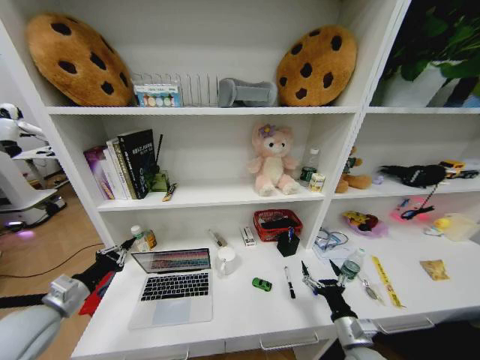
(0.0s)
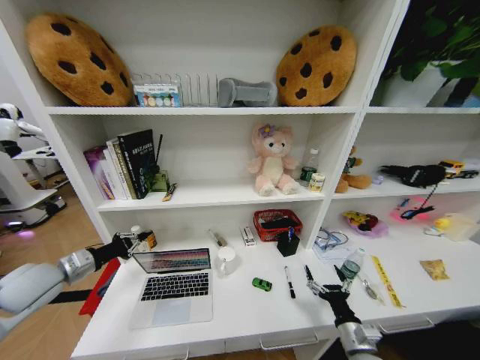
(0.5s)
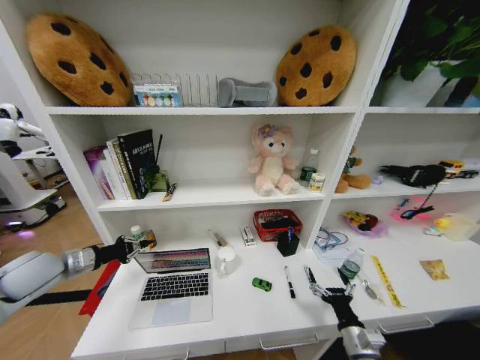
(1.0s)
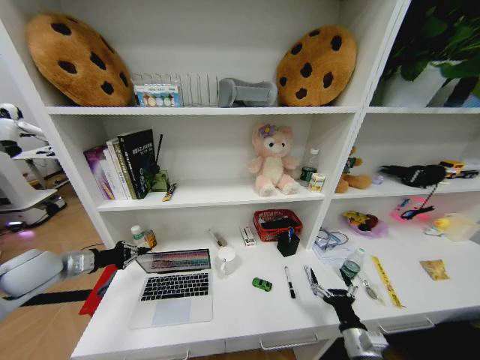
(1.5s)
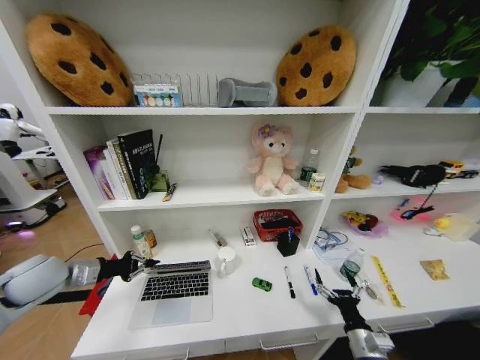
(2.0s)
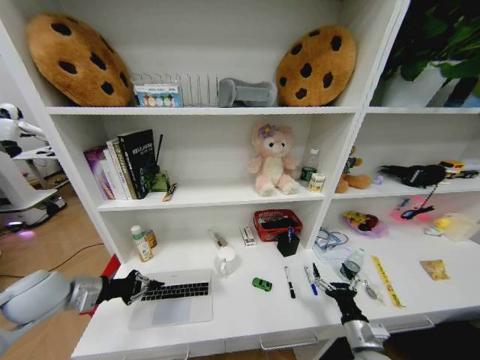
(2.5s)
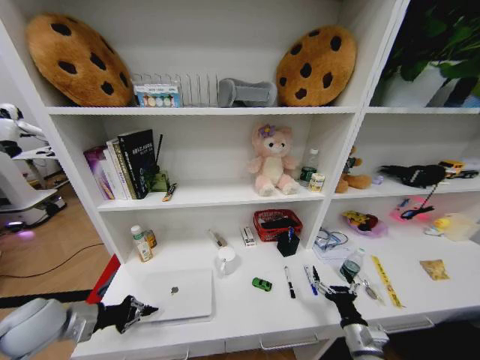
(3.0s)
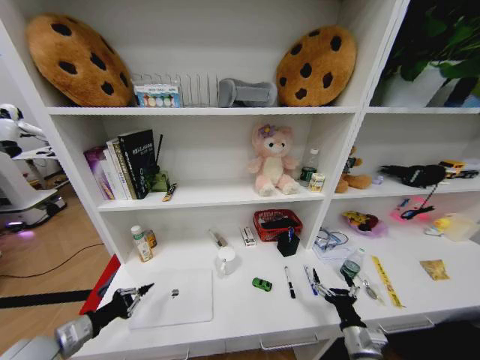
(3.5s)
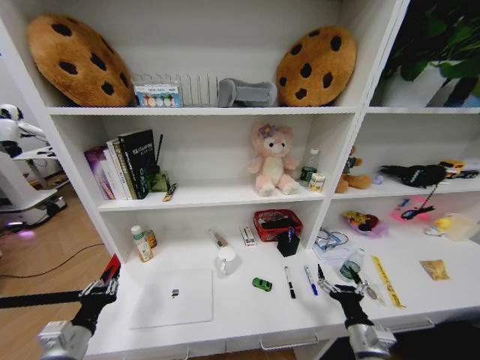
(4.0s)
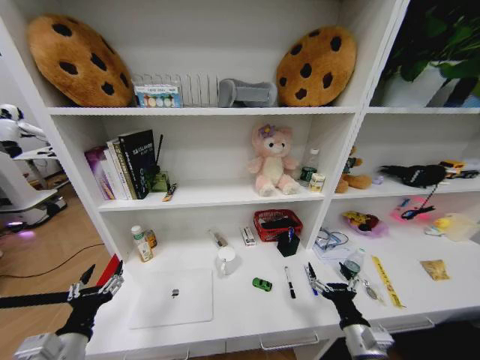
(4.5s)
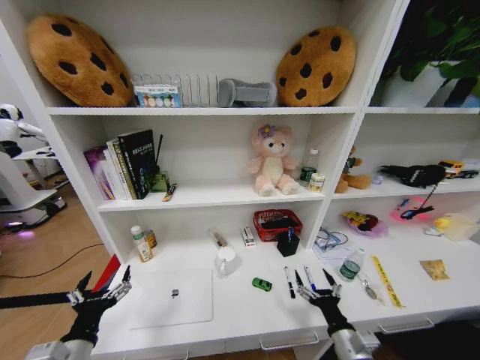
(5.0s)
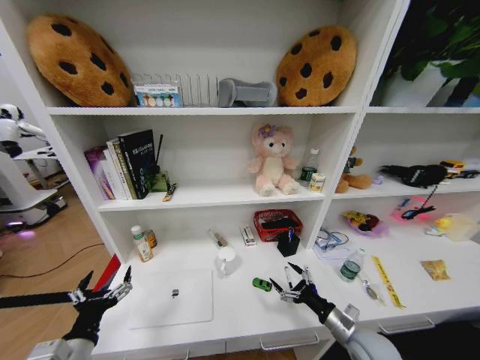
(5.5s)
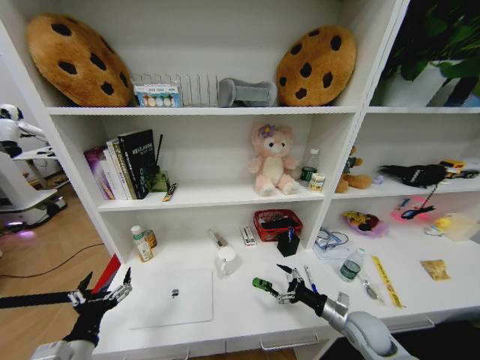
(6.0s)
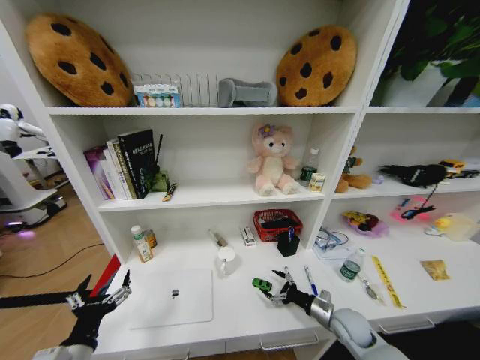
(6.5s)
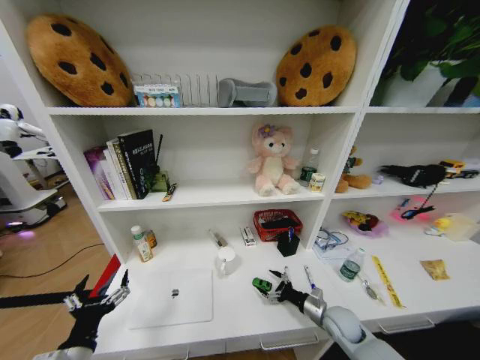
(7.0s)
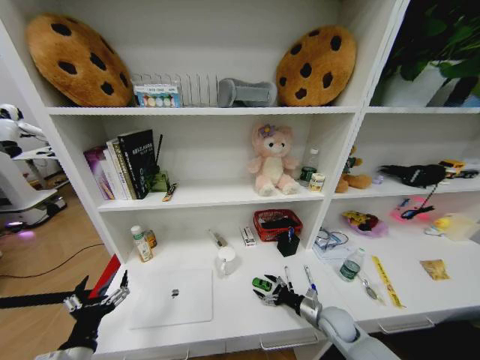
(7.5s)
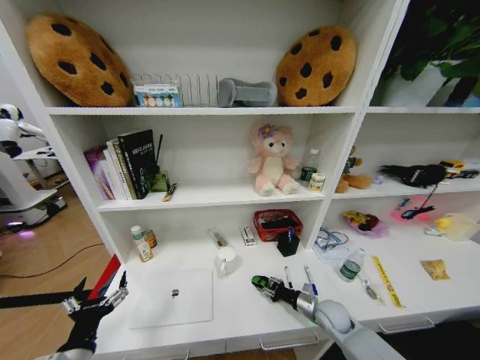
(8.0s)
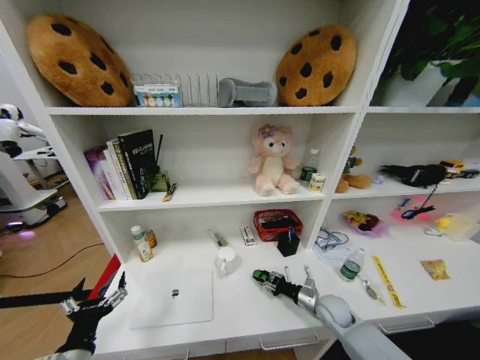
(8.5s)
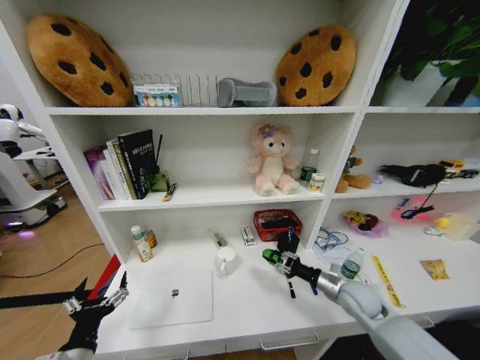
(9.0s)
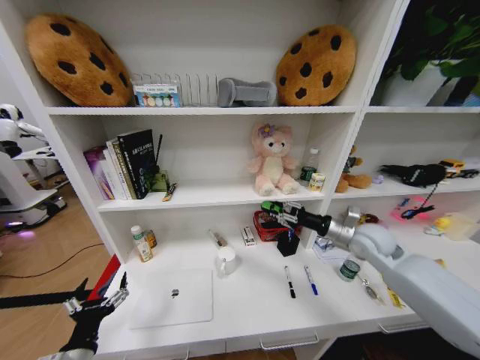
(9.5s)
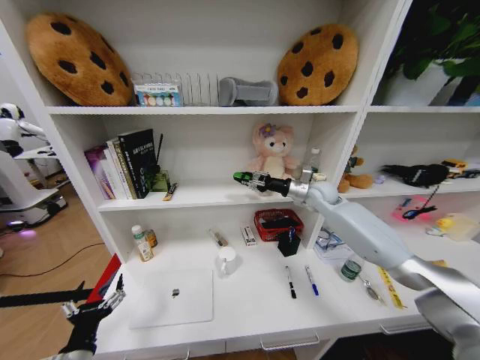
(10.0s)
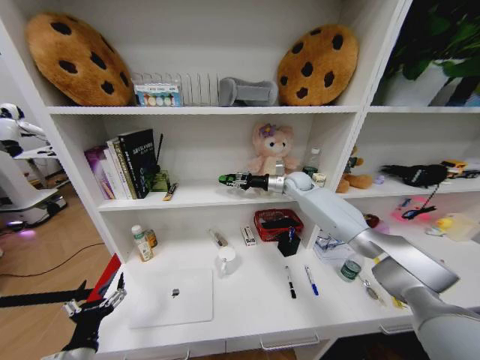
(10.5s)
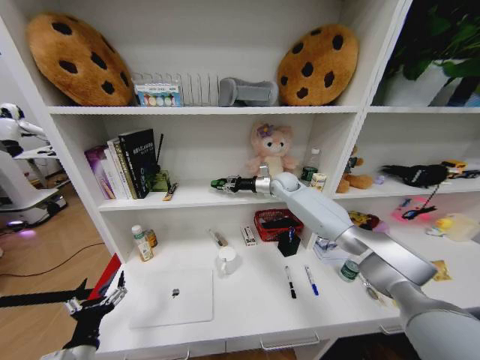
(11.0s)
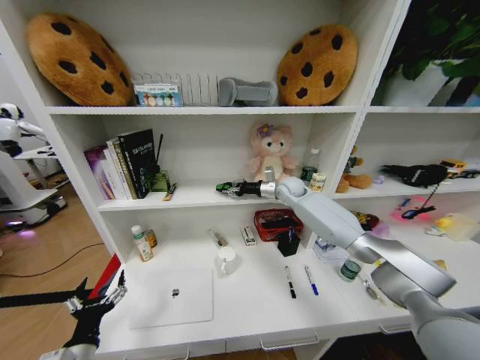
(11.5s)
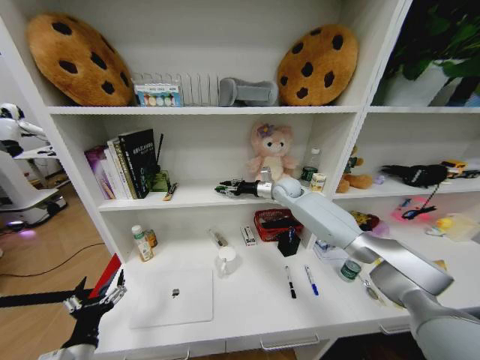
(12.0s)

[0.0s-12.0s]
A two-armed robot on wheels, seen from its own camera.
Task of the whole recording: Organize the objects on the table.
0.0s to 2.0s: The left gripper shifts approximately 10 cm forward and upward.
2.0s to 4.0s: The left gripper shifts roughly 20 cm backward, downward and to the right.
4.0s to 6.0s: The left gripper moves some 5 cm, and opens; the right gripper shifts roughly 10 cm forward.
6.0s to 8.0s: The right gripper shifts about 10 cm downward and forward, and closes.
8.0s to 10.0s: The right gripper shifts about 40 cm upward and forward.
10.0s to 12.0s: The right gripper goes roughly 10 cm to the left and forward.

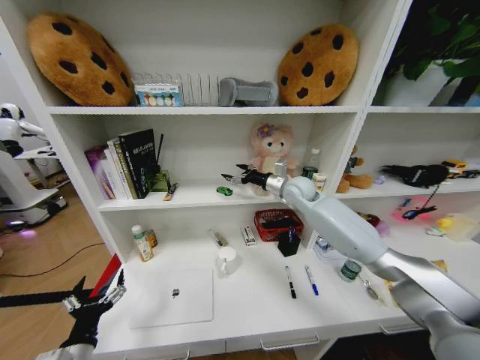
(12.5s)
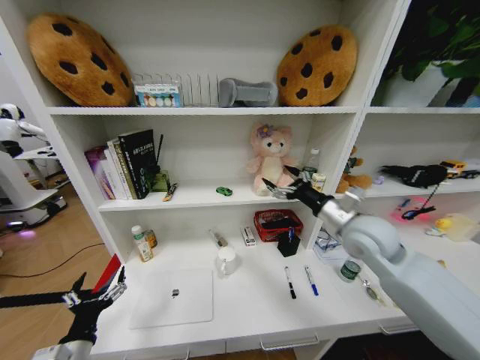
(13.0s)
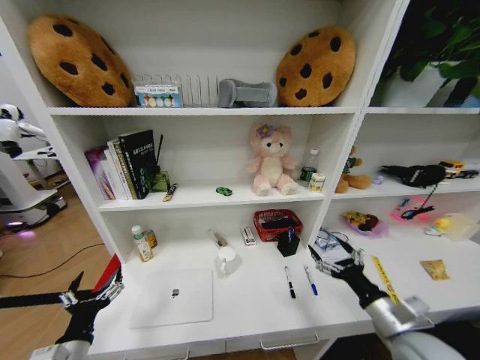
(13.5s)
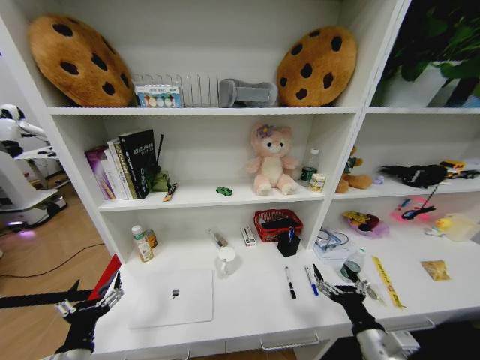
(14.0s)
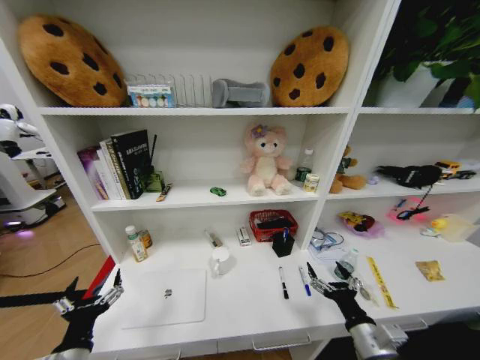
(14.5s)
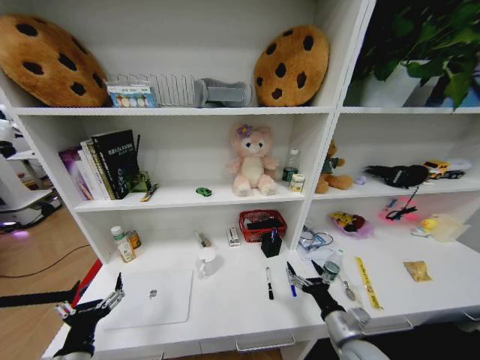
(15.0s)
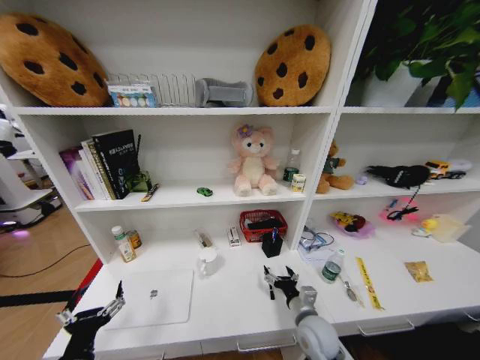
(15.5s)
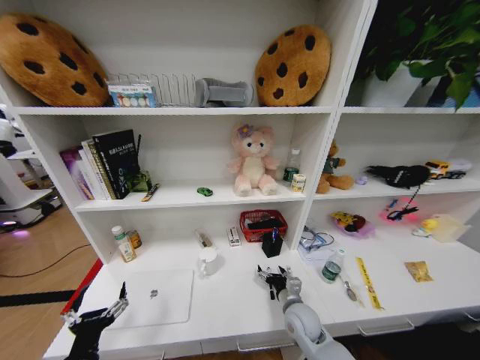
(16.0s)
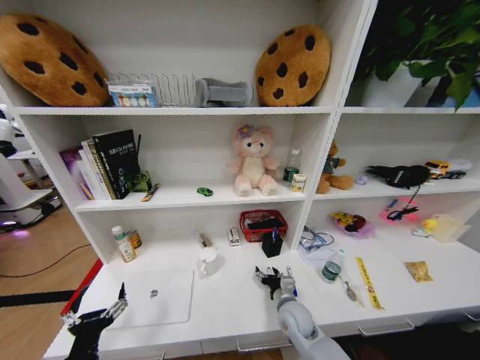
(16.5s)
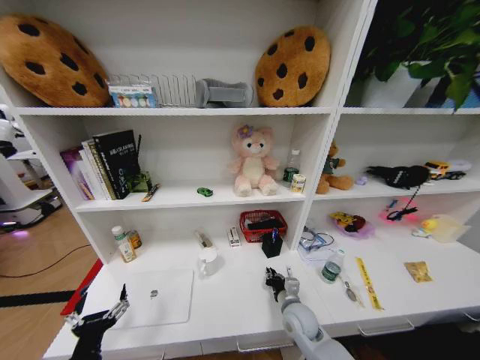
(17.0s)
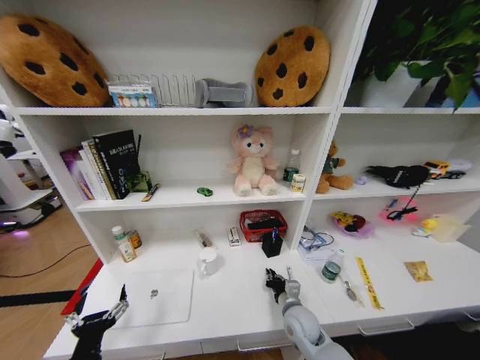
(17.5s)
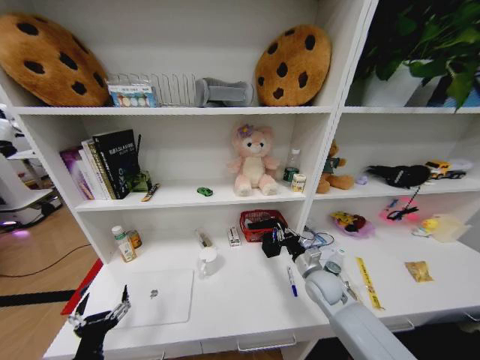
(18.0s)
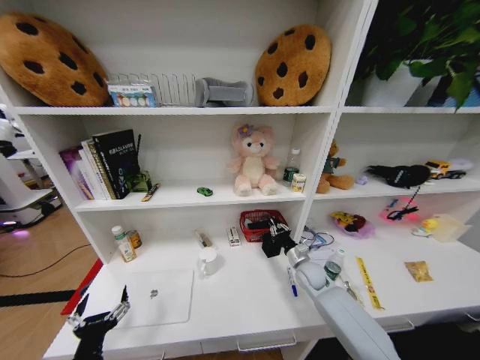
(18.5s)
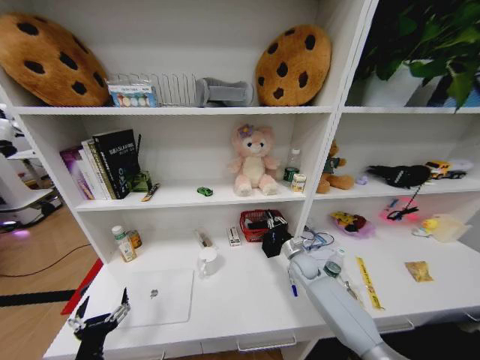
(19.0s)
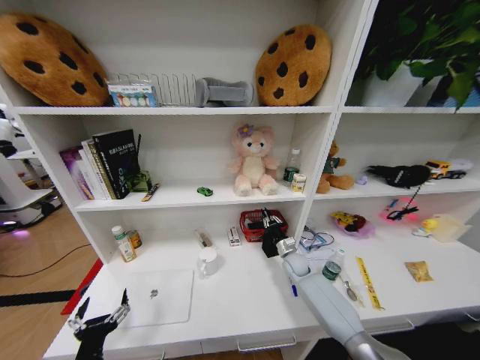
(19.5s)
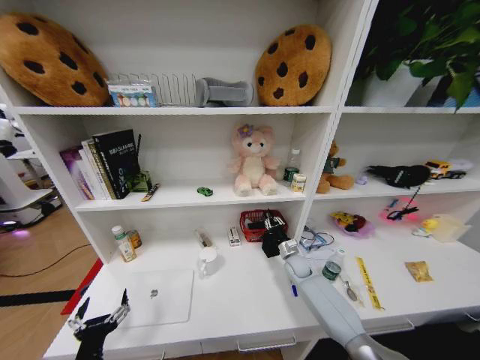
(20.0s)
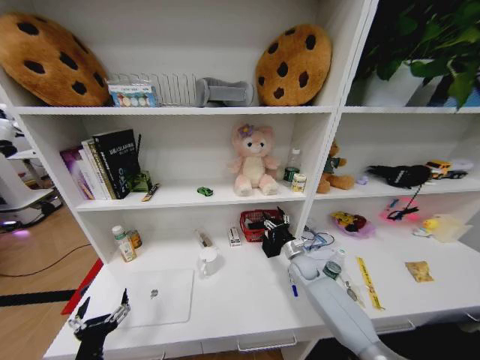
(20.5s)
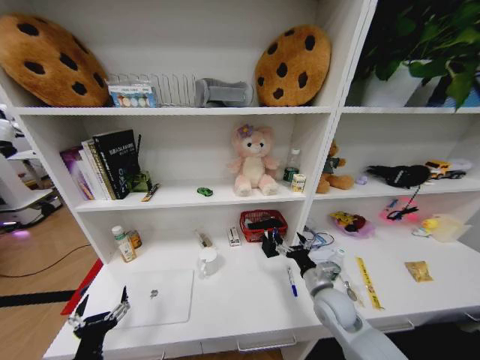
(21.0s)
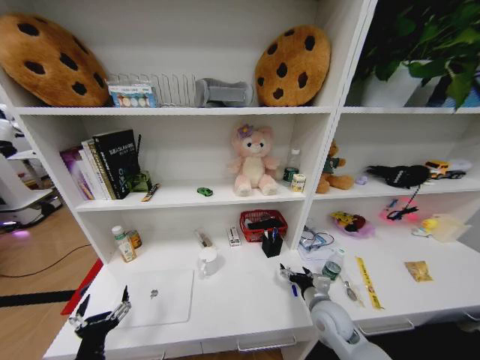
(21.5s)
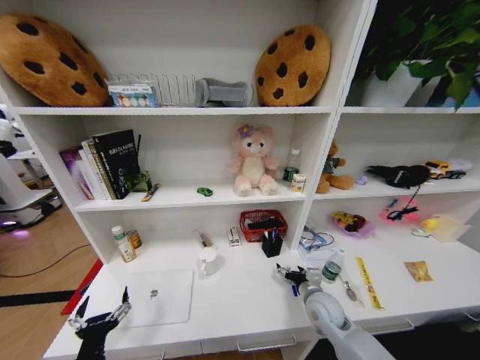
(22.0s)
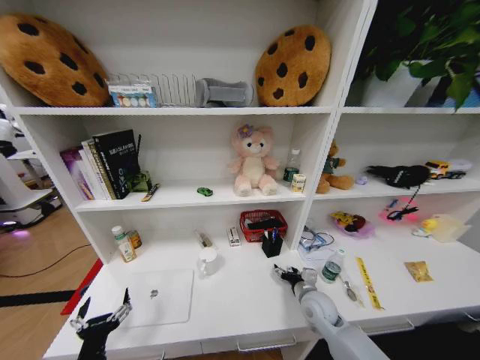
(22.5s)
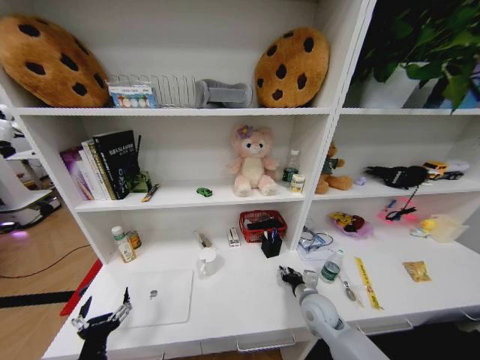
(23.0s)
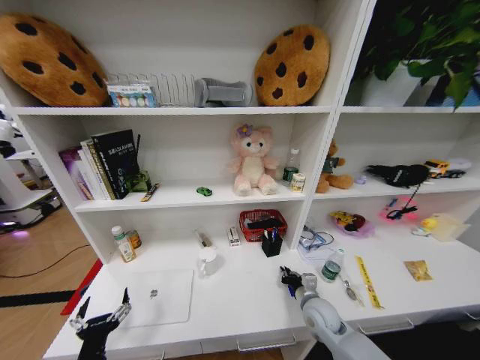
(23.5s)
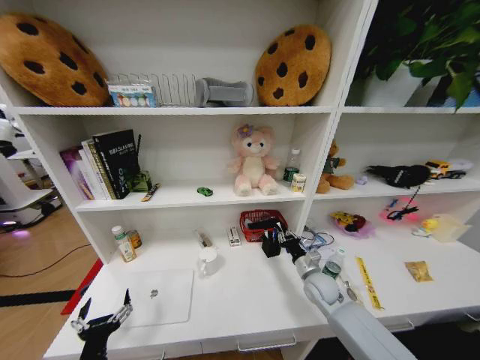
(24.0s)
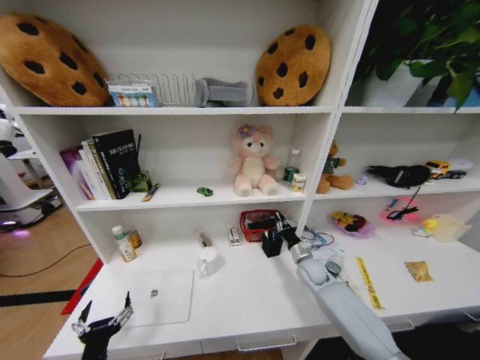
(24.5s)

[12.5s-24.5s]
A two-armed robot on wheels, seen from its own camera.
Task of the whole recording: Organize the objects on the table.
12.5s to 14.5s: The right gripper moves backward and downward, about 50 cm.
14.5s to 16.5s: The right gripper travels forward, to the left and downward by some 20 cm.
16.5s to 18.5s: The right gripper heads forward and to the right, covering approximately 15 cm, and closes.
18.5s to 20.5s: The right gripper opens its fingers.
20.5s to 22.5s: The right gripper heads backward, covering roughly 15 cm.
22.5s to 24.5s: The right gripper shifts about 10 cm forward, and closes.

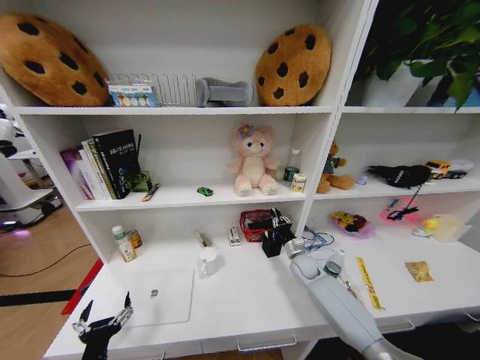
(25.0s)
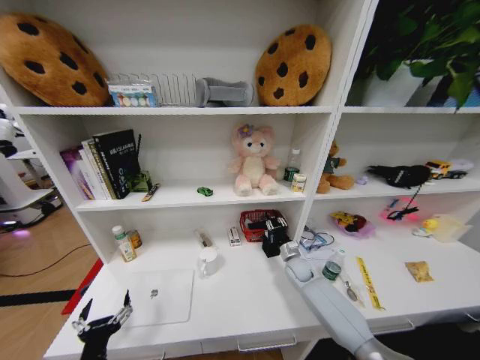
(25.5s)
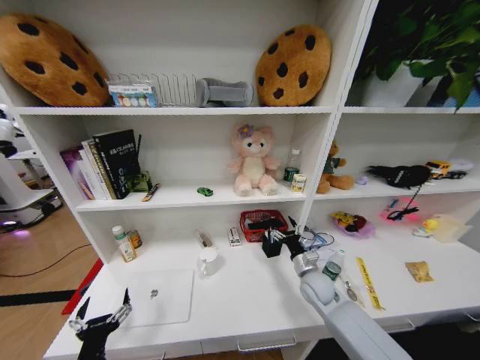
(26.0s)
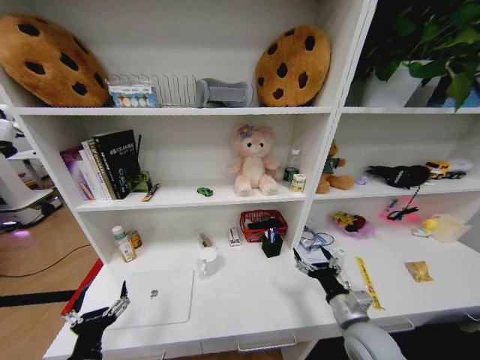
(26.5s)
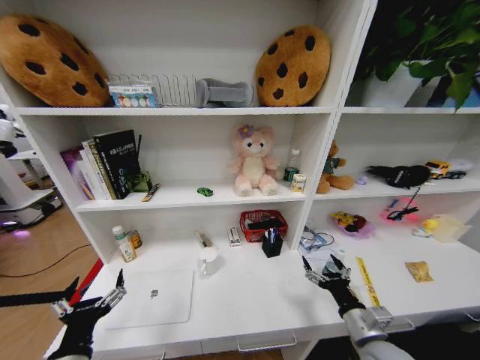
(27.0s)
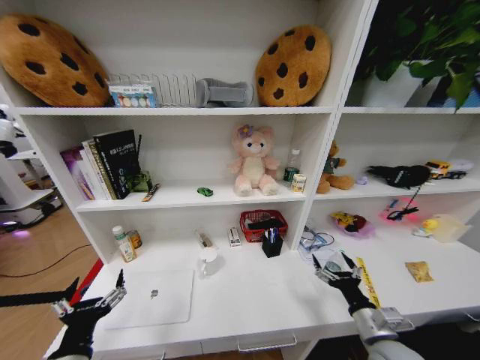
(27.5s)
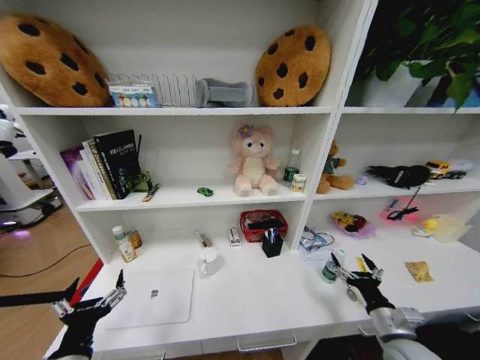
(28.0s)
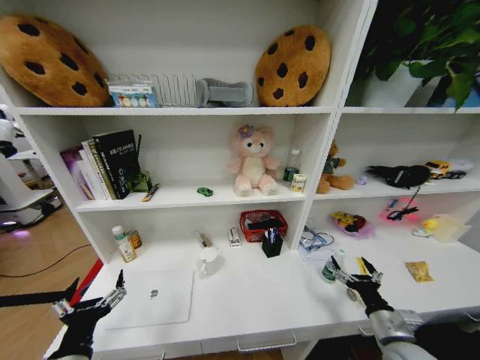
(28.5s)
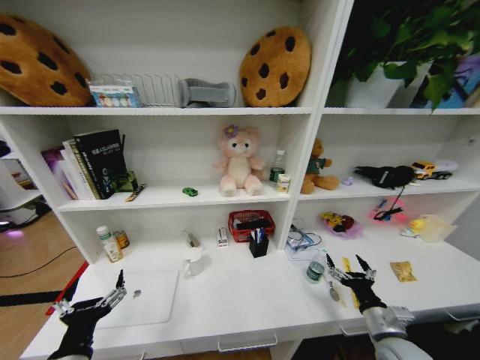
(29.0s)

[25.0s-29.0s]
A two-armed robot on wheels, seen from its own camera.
Task of the whole recording: Organize the objects on the table.
25.0s to 27.0s: The right gripper travels backward by roughly 30 cm, and opens its fingers. The left gripper heads upward, covering approximately 10 cm.
27.0s to 29.0s: The right gripper moves to the right, roughly 5 cm.
